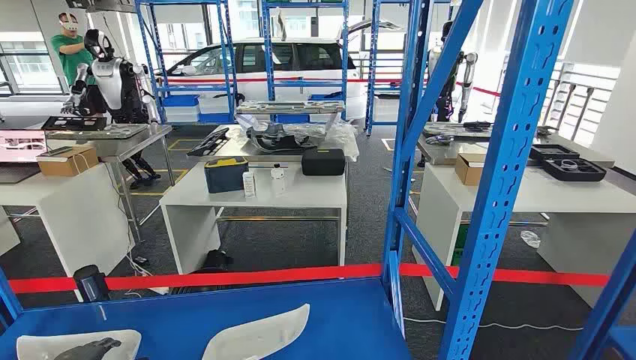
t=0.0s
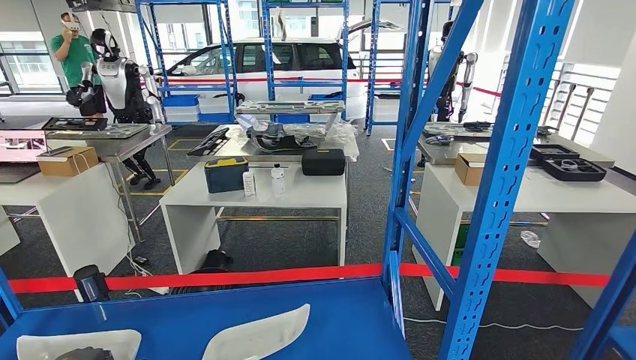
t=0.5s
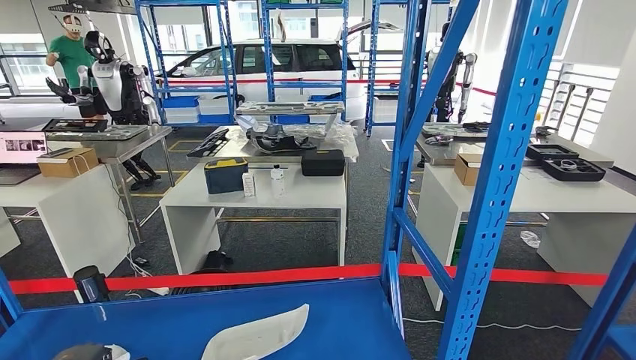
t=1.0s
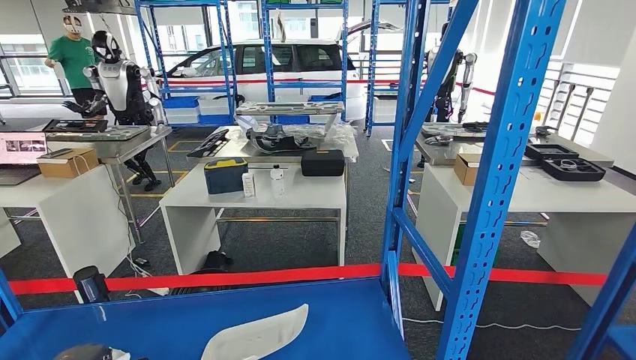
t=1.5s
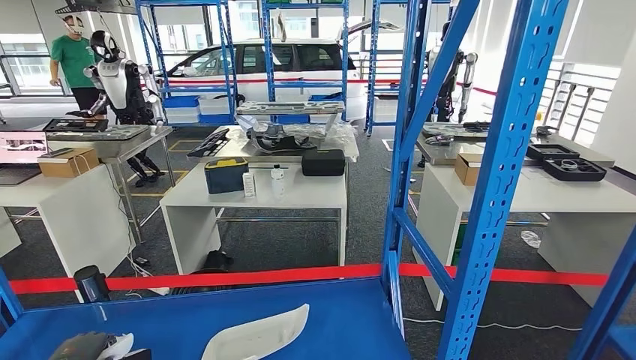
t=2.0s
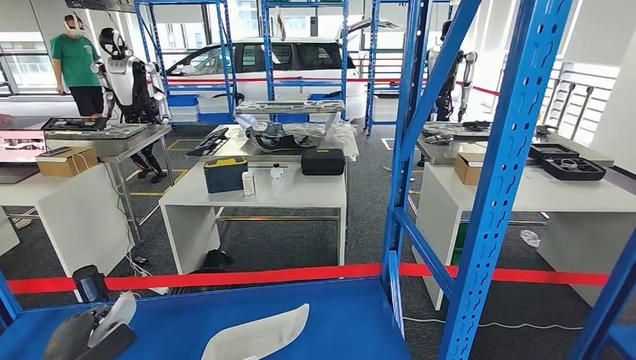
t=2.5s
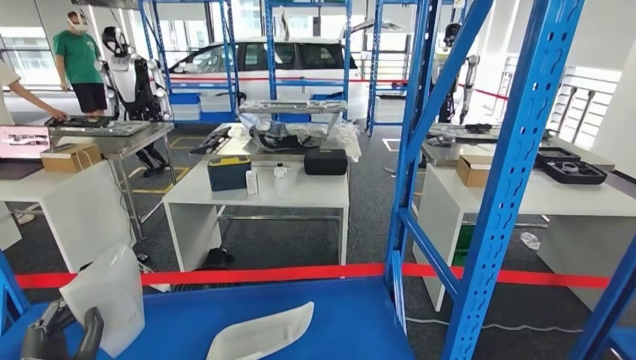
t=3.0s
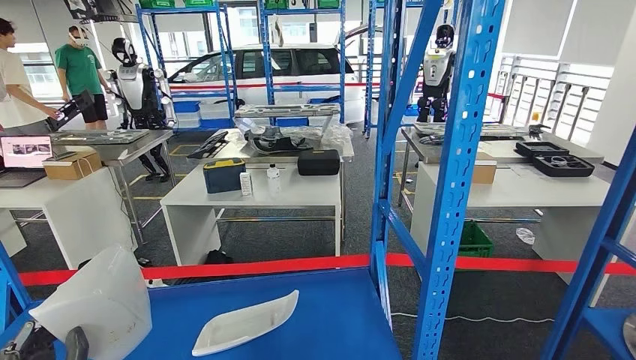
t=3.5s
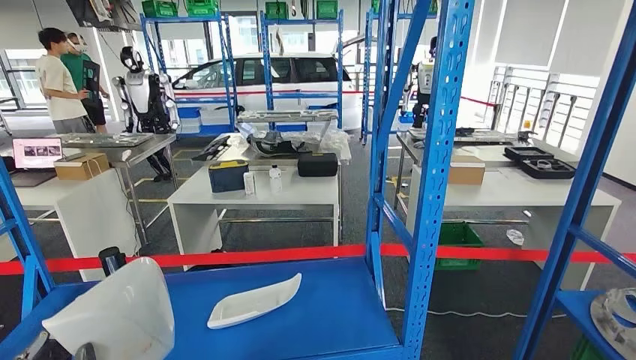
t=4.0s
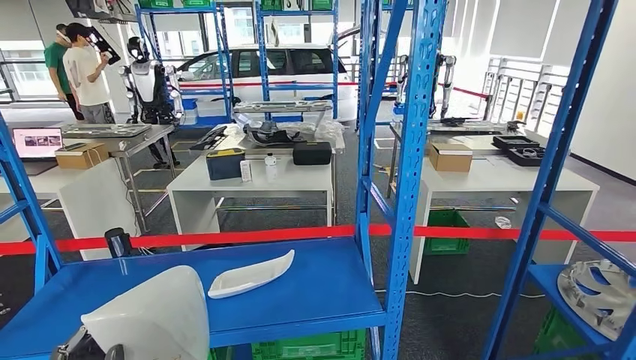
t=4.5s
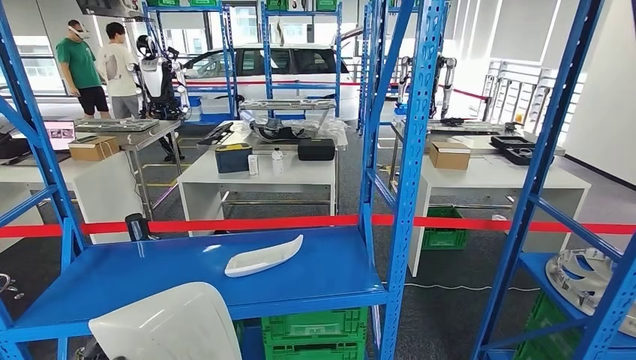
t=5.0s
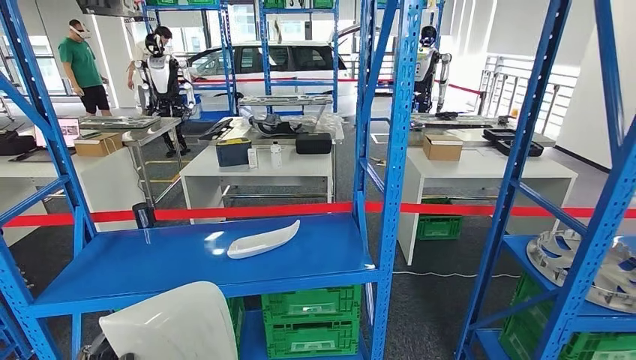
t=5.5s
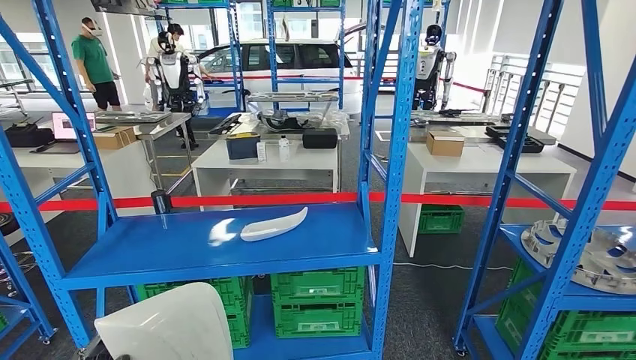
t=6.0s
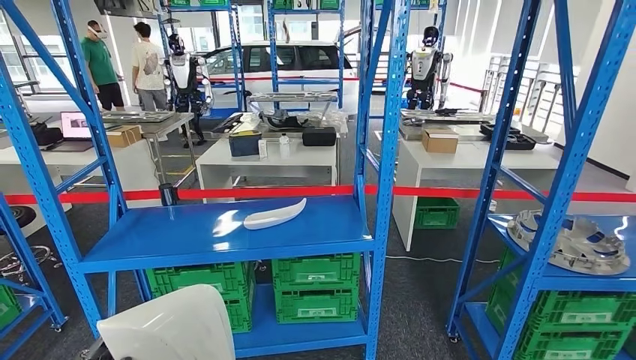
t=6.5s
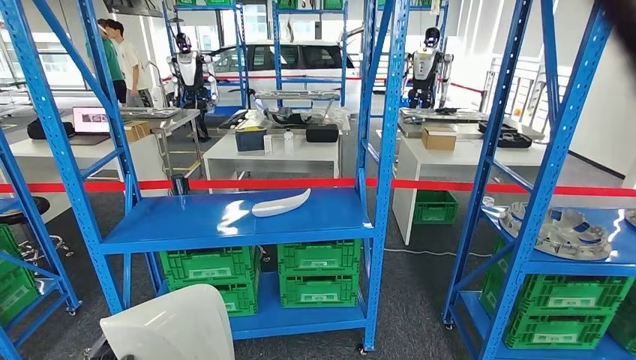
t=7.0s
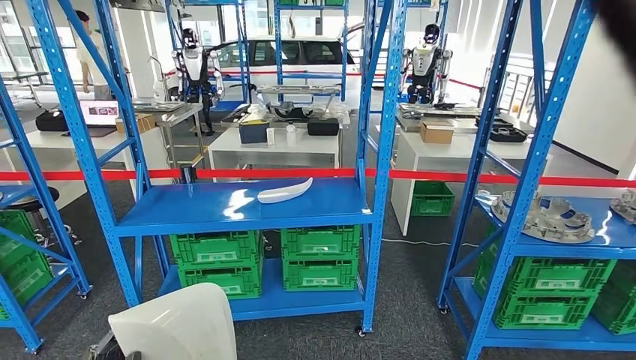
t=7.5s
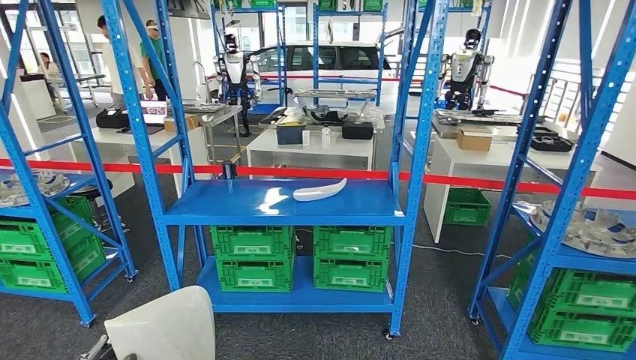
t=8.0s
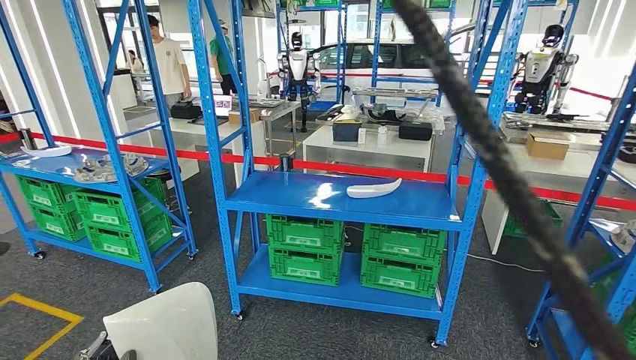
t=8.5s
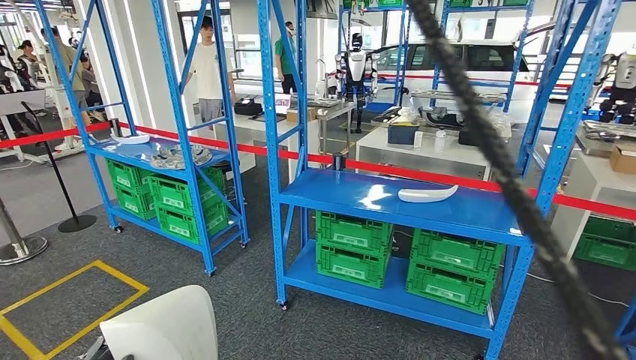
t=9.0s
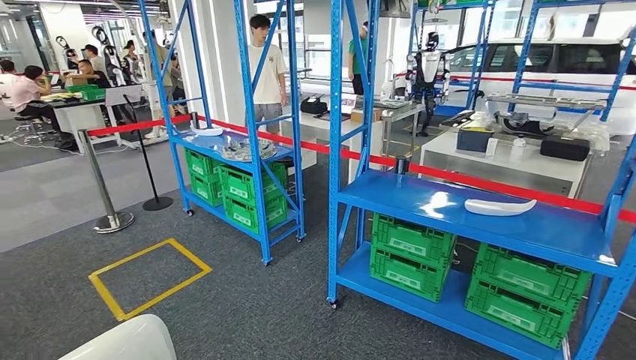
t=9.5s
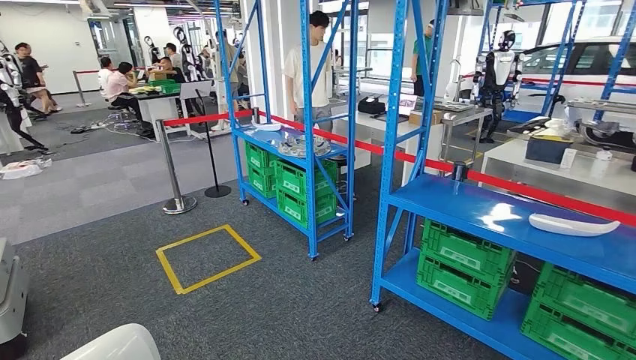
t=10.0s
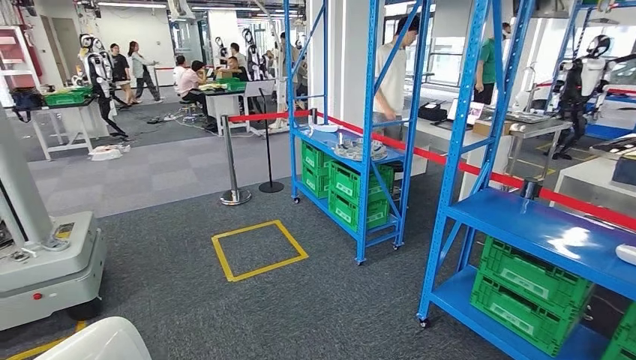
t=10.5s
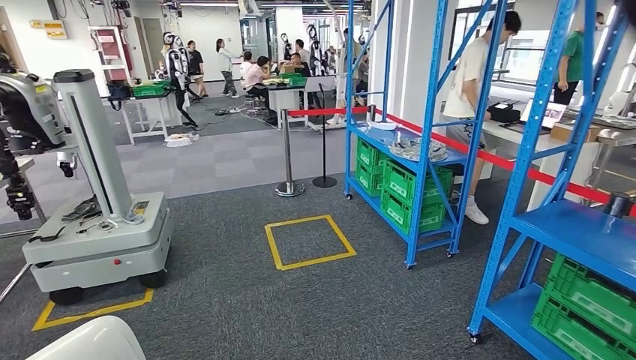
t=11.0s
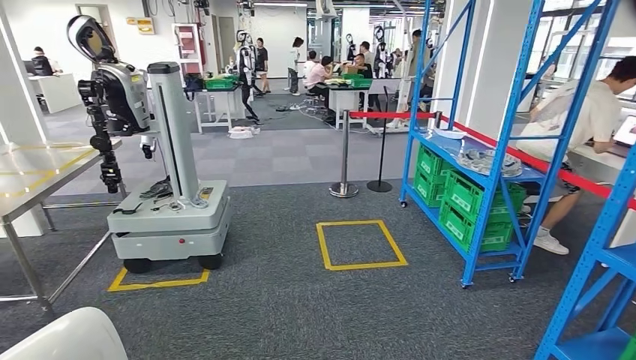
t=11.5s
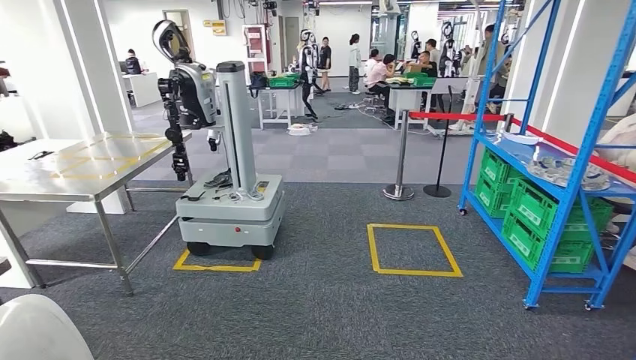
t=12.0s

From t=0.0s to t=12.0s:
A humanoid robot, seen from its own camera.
Step, from t=0.0s to t=5.0s: Pick up the small component from the shelf.

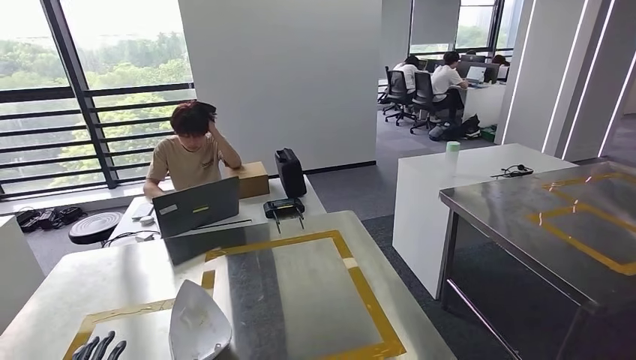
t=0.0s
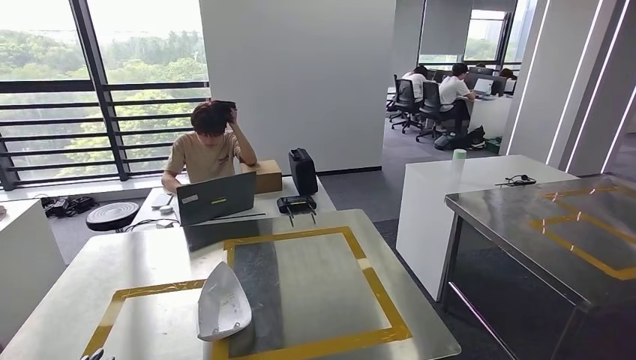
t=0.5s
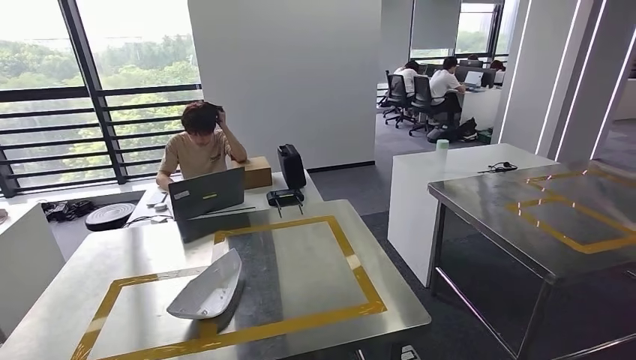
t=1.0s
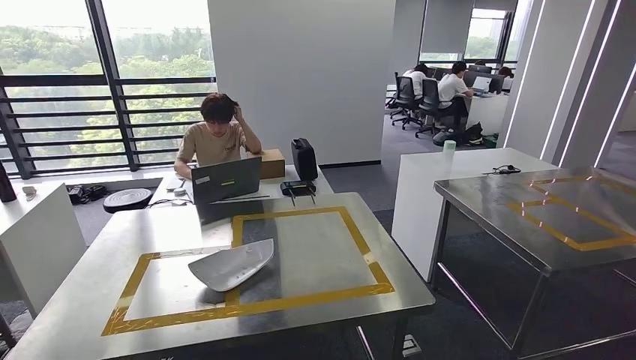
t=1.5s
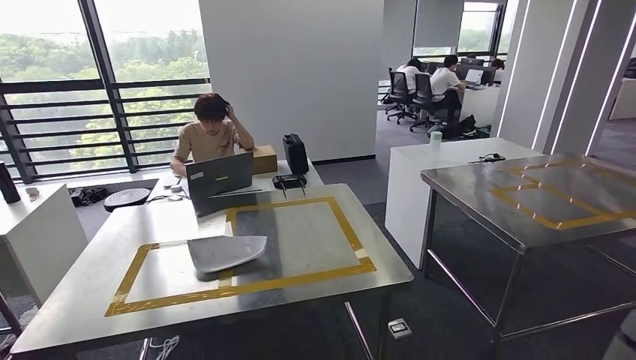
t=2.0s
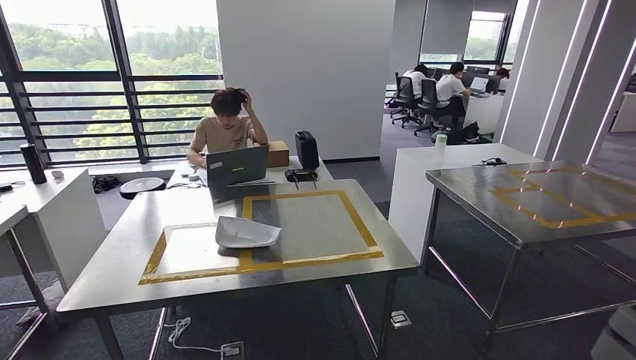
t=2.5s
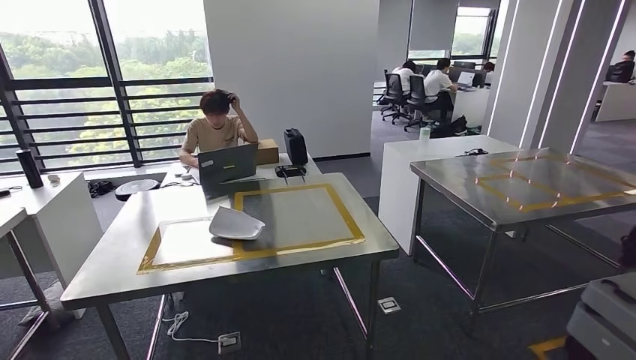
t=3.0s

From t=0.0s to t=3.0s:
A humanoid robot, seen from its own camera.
Step, from t=0.5s to t=3.0s: Move to the initial position of the workbench.
